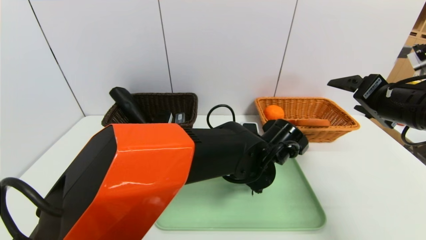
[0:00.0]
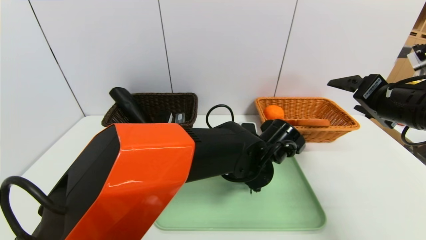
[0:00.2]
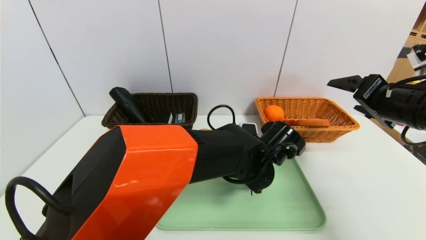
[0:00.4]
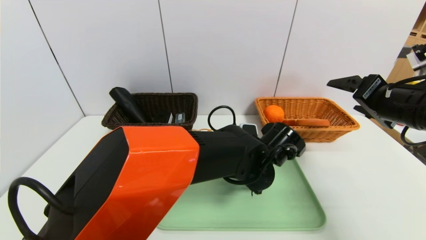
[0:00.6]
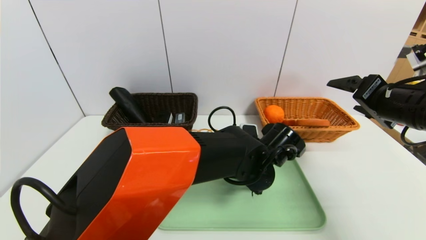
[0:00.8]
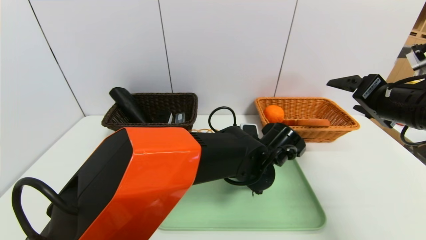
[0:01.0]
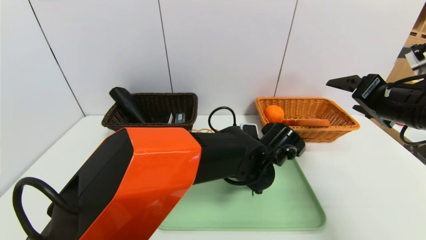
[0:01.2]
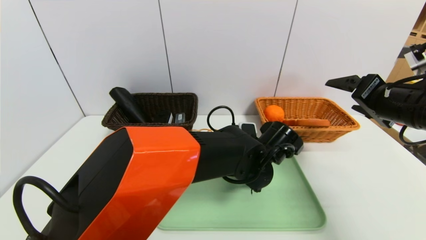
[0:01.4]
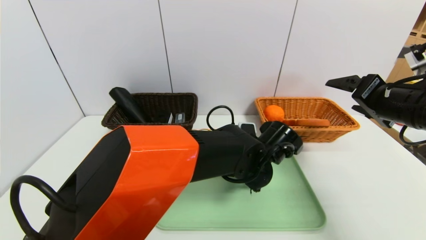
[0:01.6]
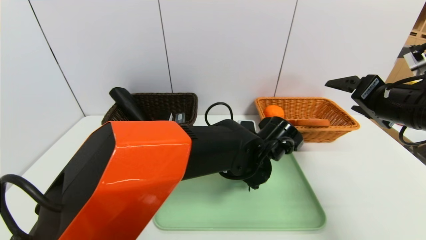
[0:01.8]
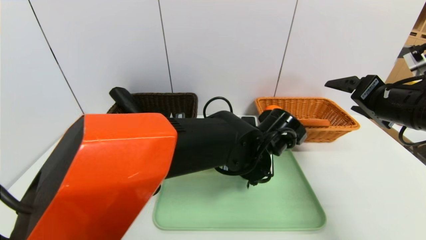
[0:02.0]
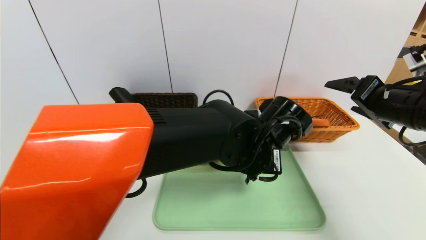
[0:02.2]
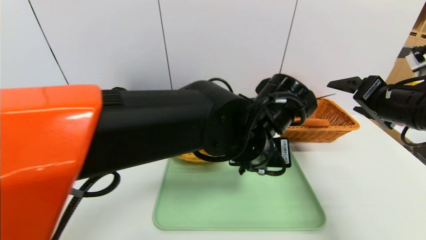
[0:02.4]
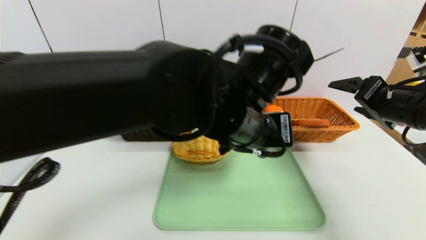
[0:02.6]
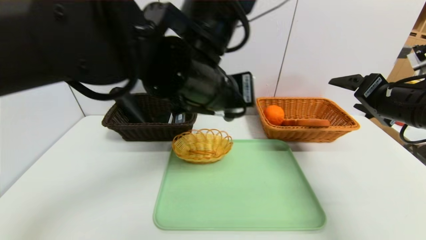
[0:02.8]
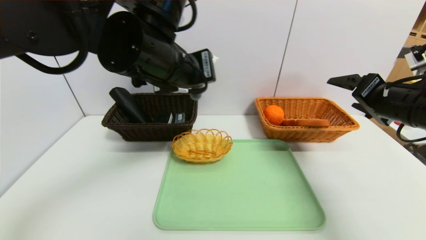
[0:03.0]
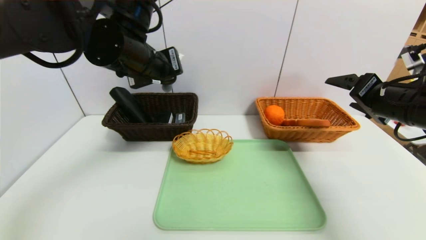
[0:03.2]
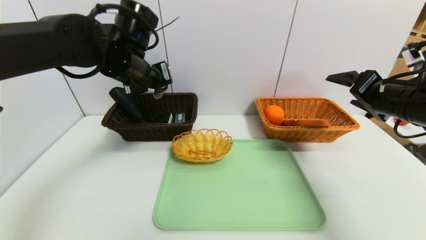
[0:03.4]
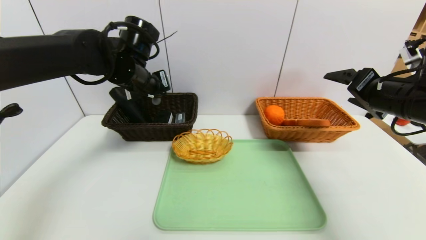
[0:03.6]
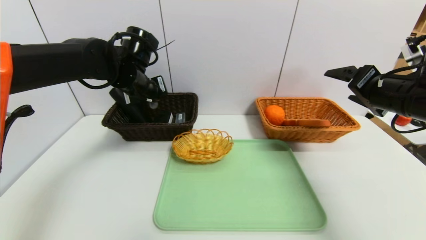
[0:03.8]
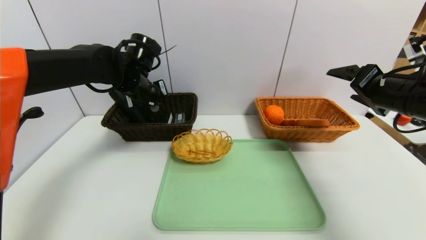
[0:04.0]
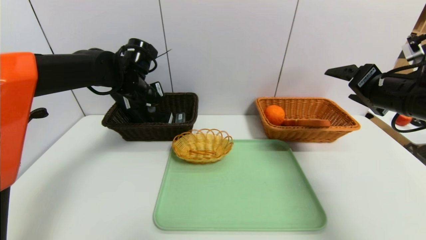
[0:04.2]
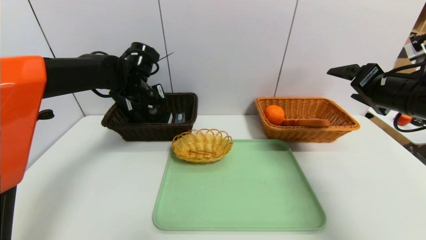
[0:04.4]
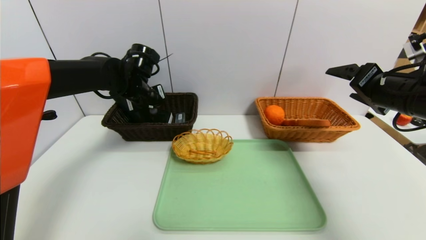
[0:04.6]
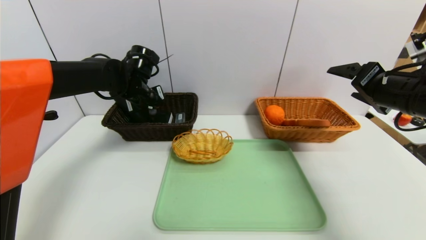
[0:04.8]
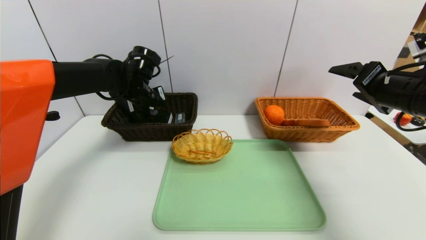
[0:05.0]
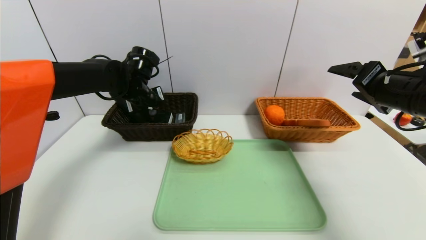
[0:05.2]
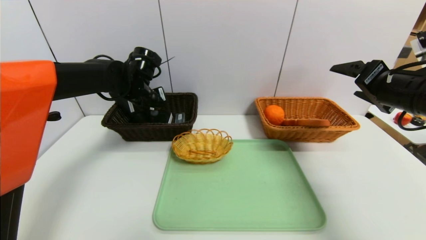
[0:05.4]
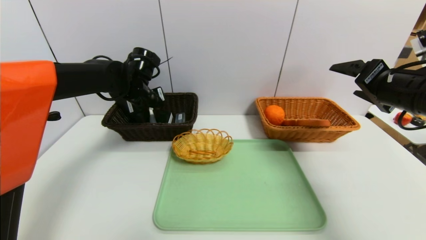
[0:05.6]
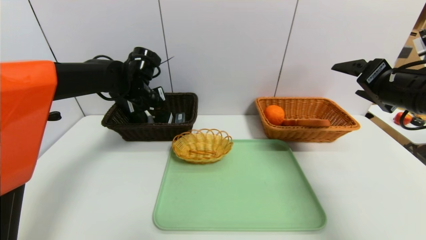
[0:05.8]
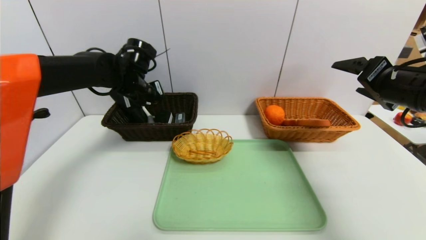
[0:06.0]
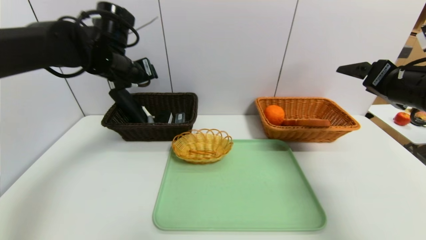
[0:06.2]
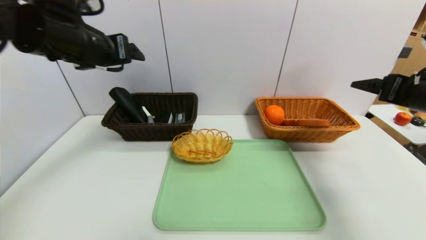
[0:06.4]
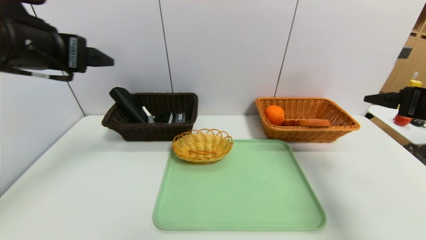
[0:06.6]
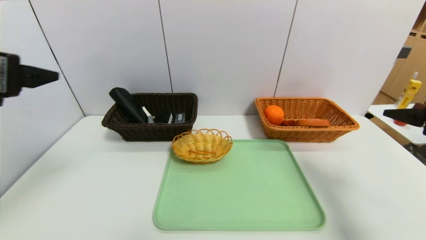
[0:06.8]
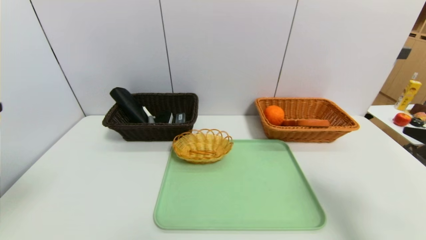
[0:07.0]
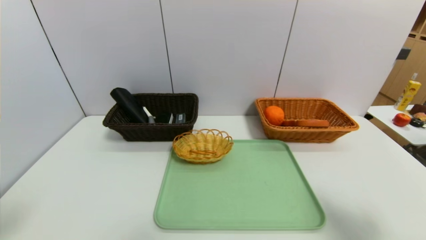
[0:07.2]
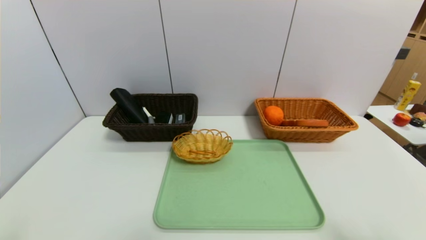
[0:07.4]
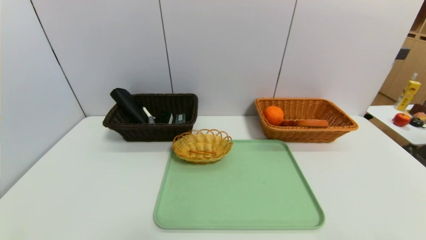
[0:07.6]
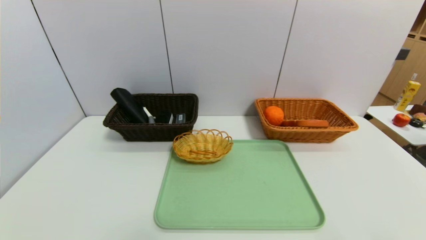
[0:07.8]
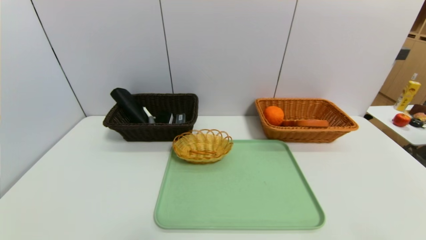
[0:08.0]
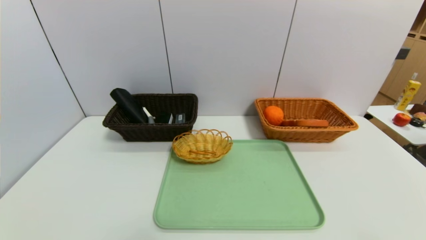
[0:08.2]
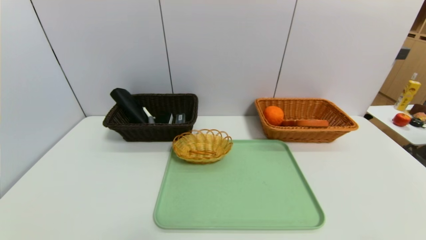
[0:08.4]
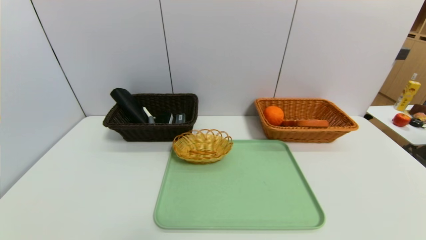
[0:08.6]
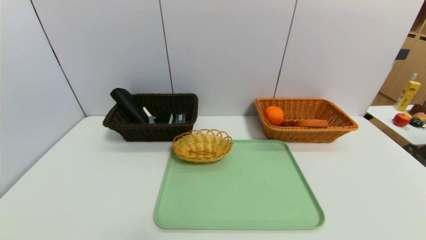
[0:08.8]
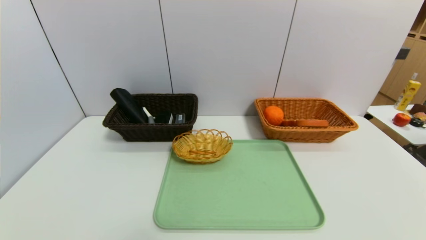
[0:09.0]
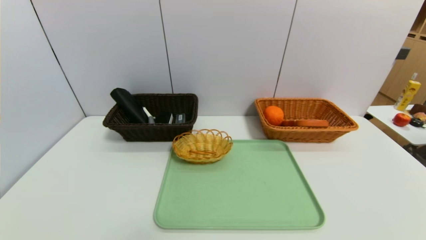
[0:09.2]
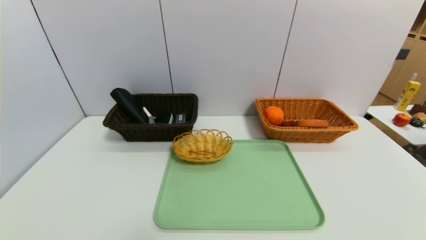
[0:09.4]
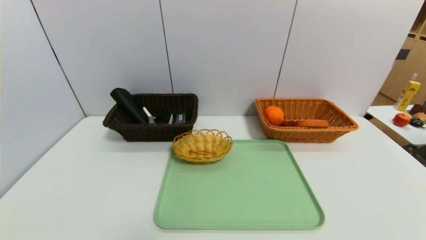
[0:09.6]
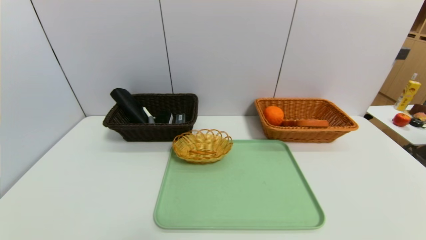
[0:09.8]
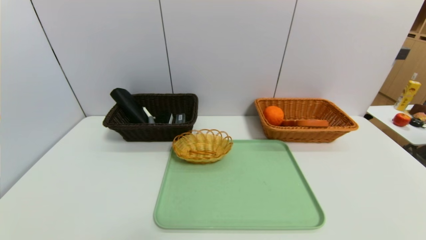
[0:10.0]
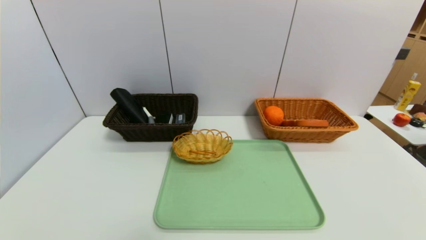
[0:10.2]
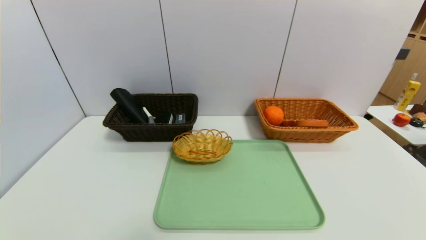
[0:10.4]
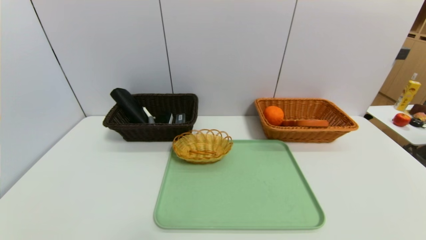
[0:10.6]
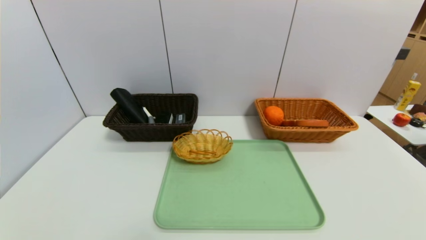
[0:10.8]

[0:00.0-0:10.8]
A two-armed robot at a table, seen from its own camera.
Task of the whole recording: place the food in the right basket with the right gripper, and place the non food items in the left basket with the left gripper.
Step, 0:00.0 to 0:06.2: Grasp the peeler and put it in the left basket.
0:00.0 to 0:01.6: The left gripper closes up.
0:01.6 to 0:03.0: The left gripper heads upward and to the left, covering approximately 25 cm.
0:03.0 to 0:04.6: The left gripper moves forward, downward and to the left, some 20 cm.
0:04.6 to 0:06.2: The left gripper moves upward and backward, some 10 cm, and opens up.
0:06.2 to 0:07.8: The left gripper moves backward and downward, approximately 40 cm, while the right gripper heads backward and downward, covering roughly 30 cm.
